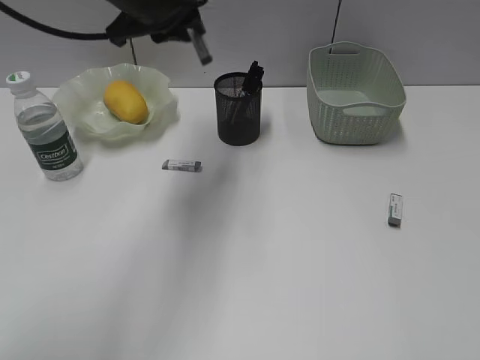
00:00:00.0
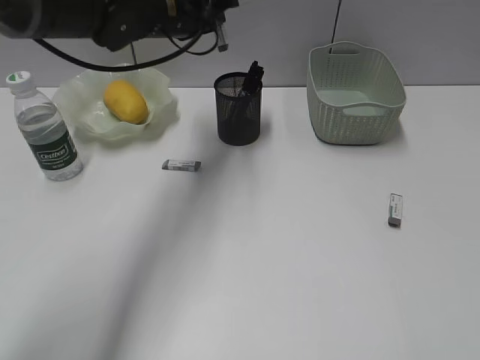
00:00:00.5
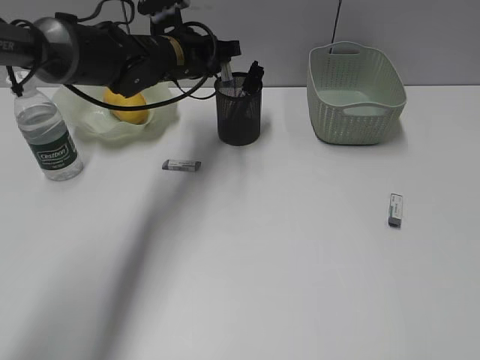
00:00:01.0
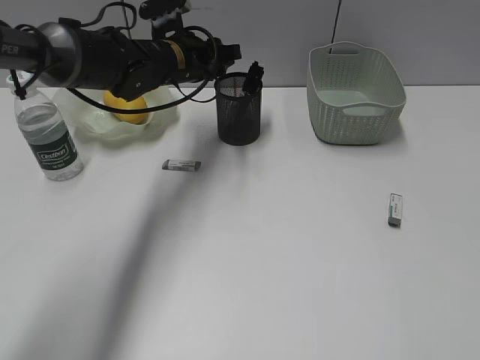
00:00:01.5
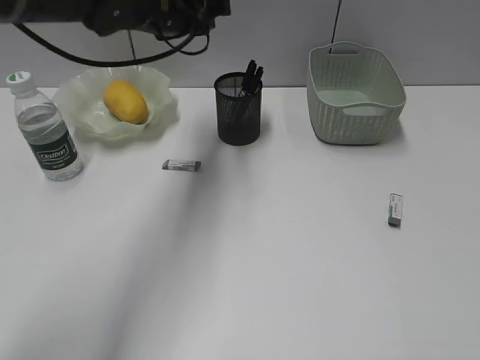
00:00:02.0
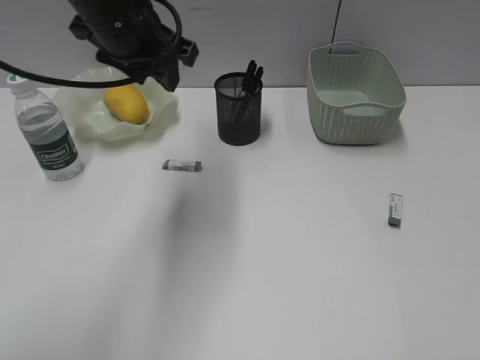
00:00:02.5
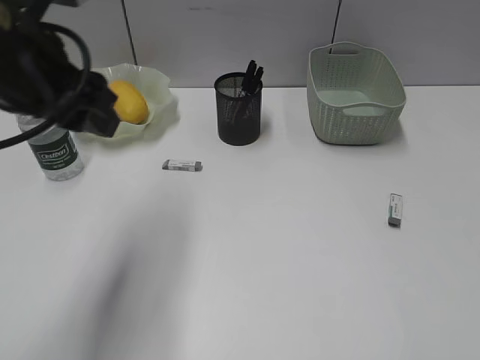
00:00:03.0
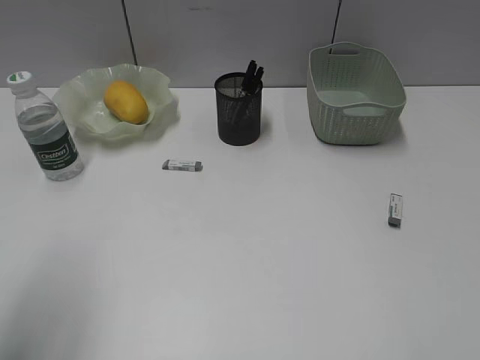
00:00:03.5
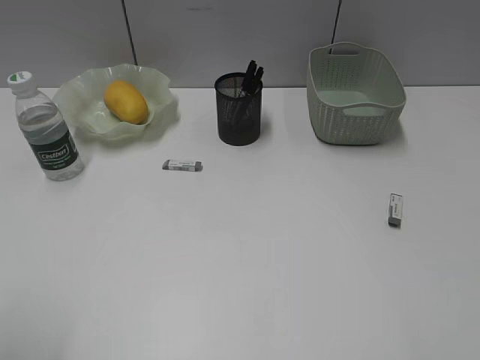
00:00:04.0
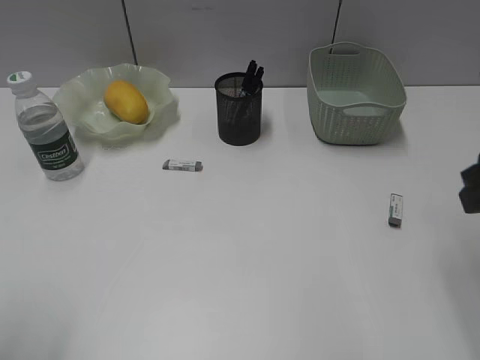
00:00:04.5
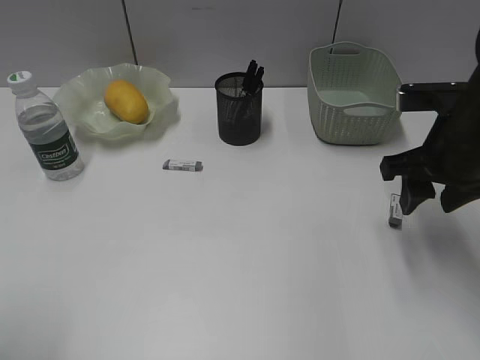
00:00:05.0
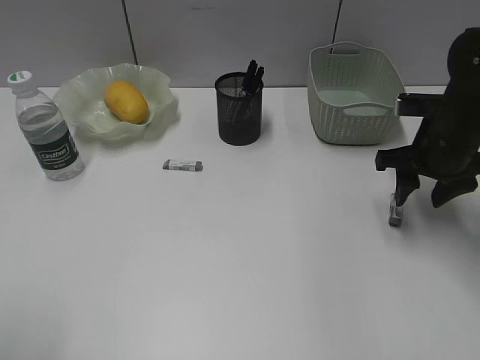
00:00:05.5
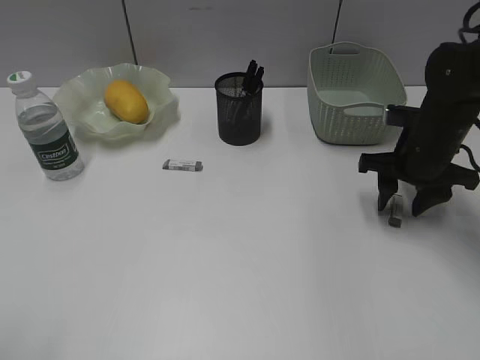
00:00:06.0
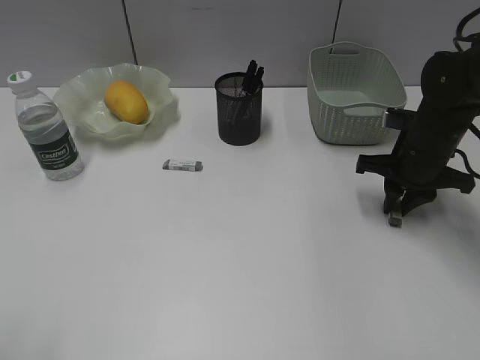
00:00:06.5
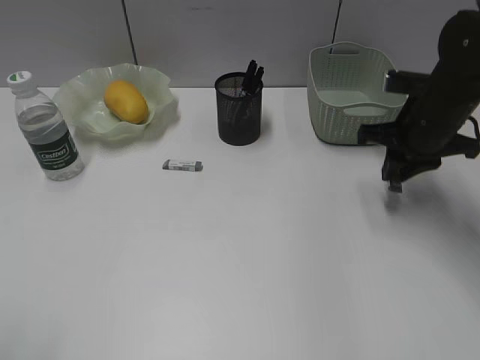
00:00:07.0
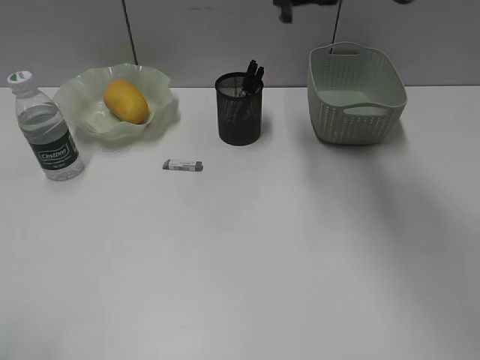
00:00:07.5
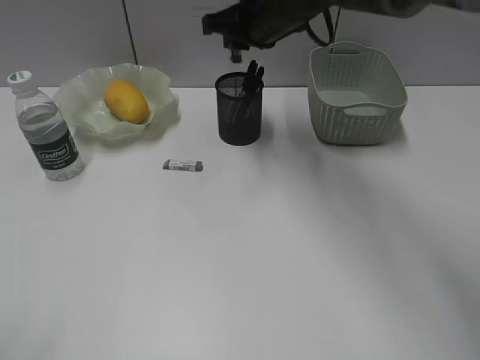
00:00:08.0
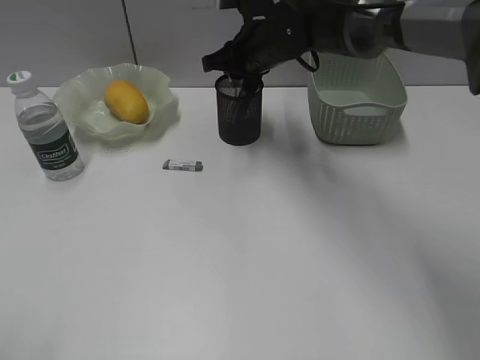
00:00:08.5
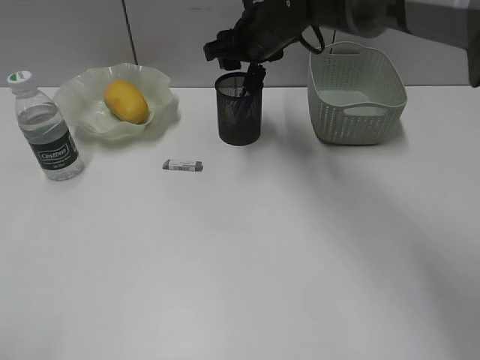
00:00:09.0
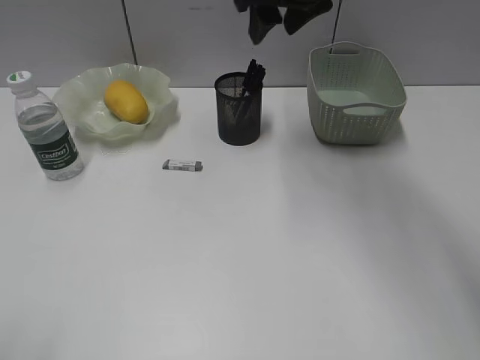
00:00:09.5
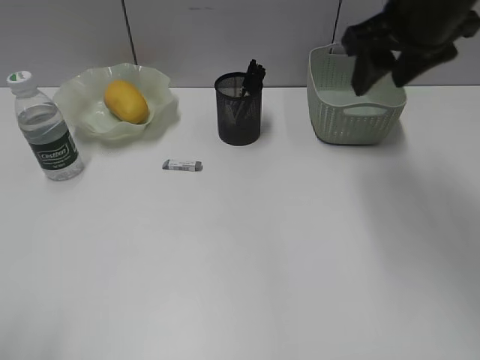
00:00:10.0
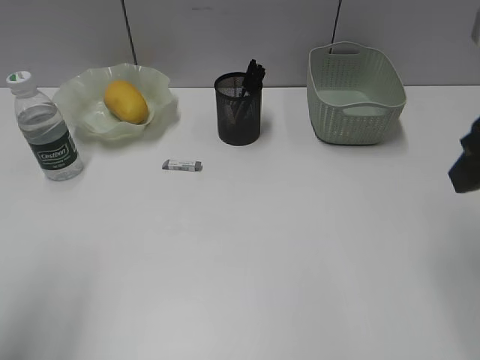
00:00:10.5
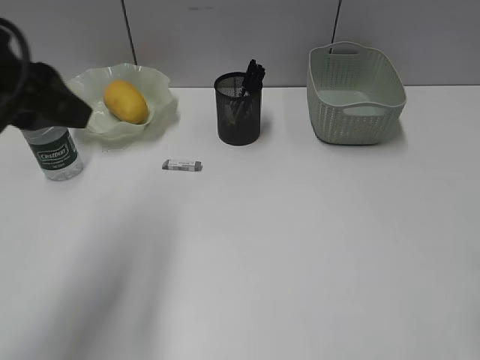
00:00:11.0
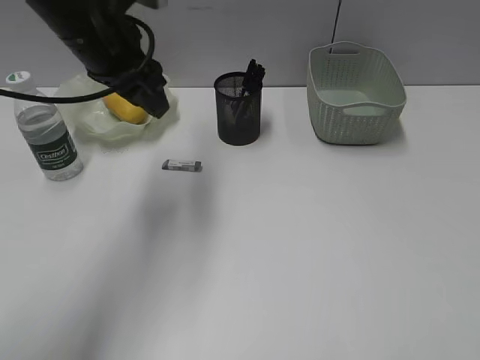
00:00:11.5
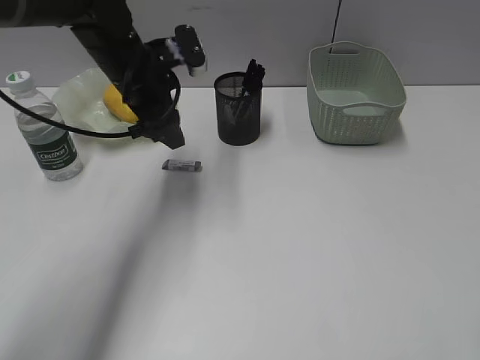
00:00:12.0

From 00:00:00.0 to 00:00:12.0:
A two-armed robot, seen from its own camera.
Step, from 00:00:00.0 to 00:00:01.5: Place the eraser in pen holder with left gripper.
Step, from 00:00:02.0 to 00:00:06.5: Grasp the eraser with right gripper.
Step, from 00:00:07.0 to 00:00:08.5: Place the eraser in pen holder with right gripper.
From 00:00:00.0 to 00:00:02.0: The left gripper travels downward and back again, about 10 cm each way.
From 00:00:02.0 to 00:00:04.0: The left gripper moves backward and to the left, some 40 cm.
From 00:00:04.0 to 00:00:06.0: The right gripper heads forward and downward, covering roughly 35 cm.
From 00:00:06.0 to 00:00:08.0: The right gripper moves to the left, upward and forward, about 25 cm, and closes its fingers.
From 00:00:08.0 to 00:00:10.0: The right gripper moves to the right, backward and upward, approximately 20 cm, and opens its fingers.
From 00:00:10.0 to 00:00:12.0: The right gripper travels backward and to the right by some 25 cm. Meanwhile the left gripper shifts roughly 40 cm forward and to the right.

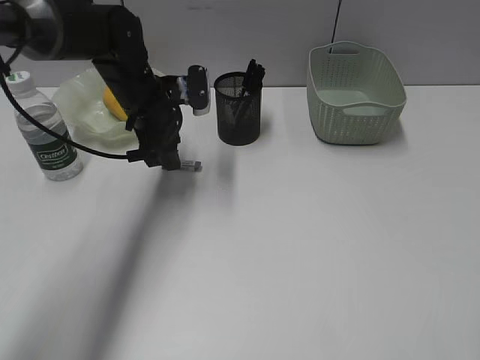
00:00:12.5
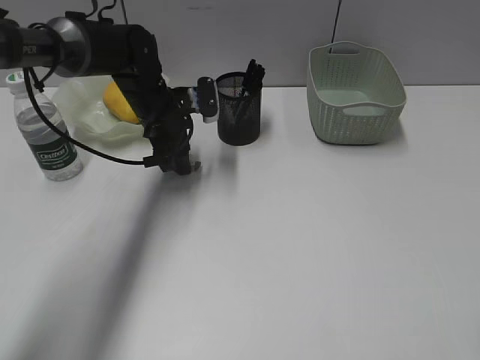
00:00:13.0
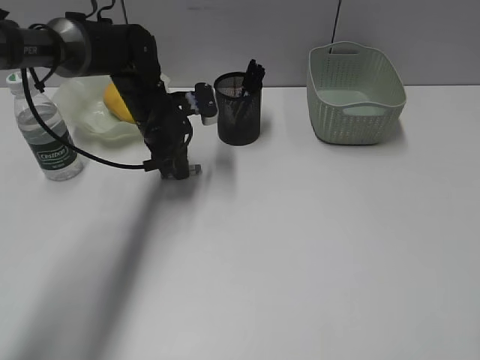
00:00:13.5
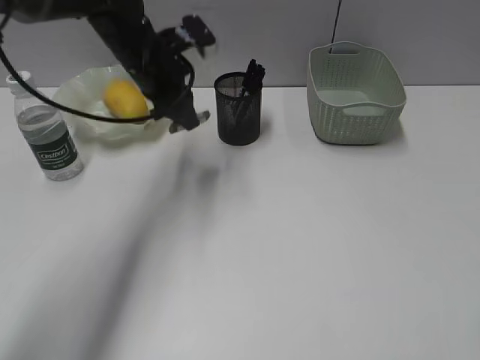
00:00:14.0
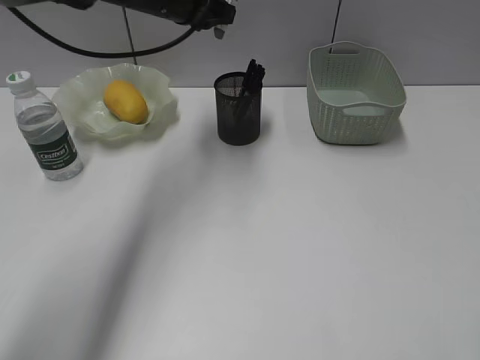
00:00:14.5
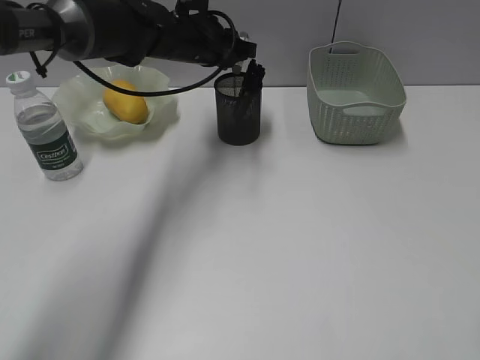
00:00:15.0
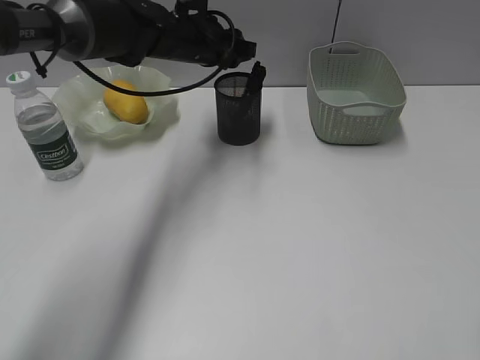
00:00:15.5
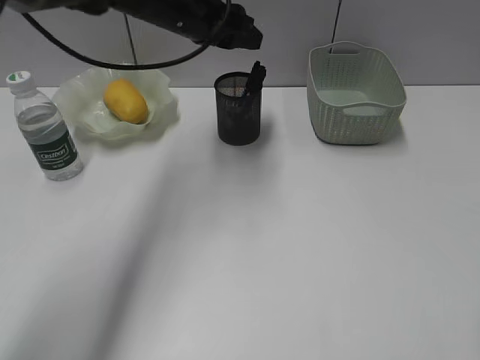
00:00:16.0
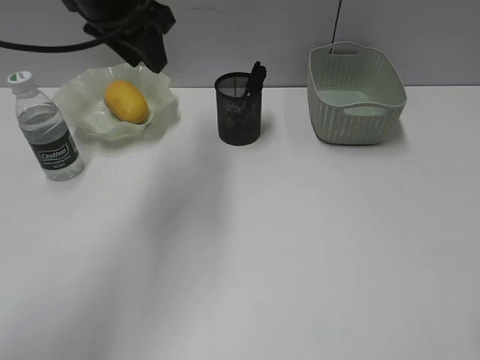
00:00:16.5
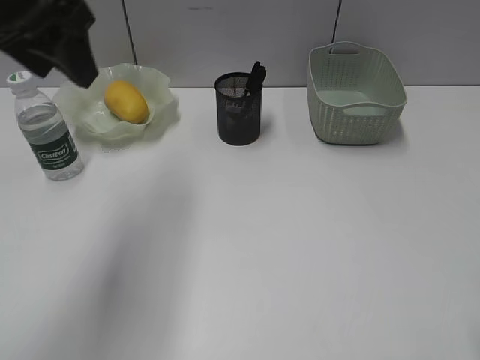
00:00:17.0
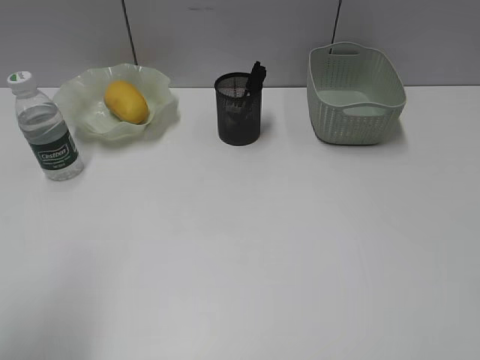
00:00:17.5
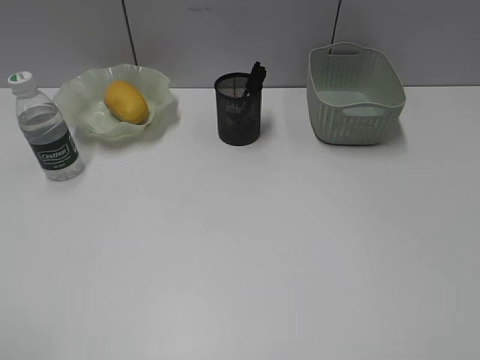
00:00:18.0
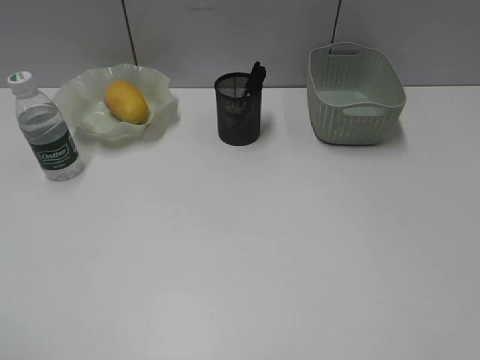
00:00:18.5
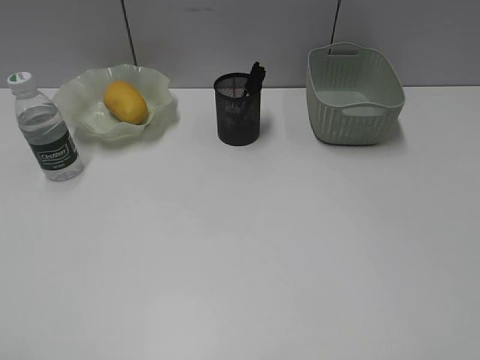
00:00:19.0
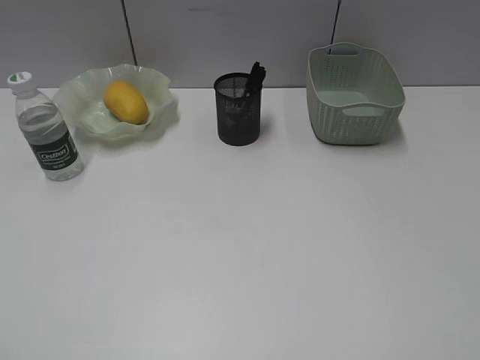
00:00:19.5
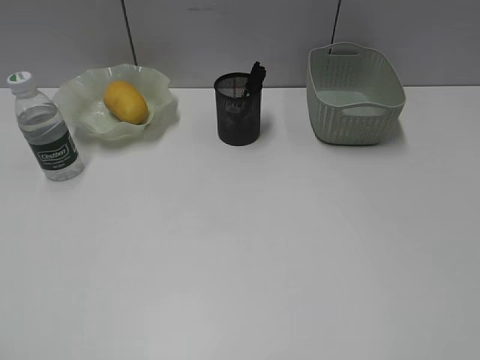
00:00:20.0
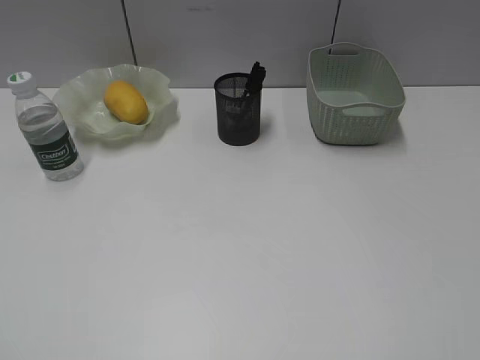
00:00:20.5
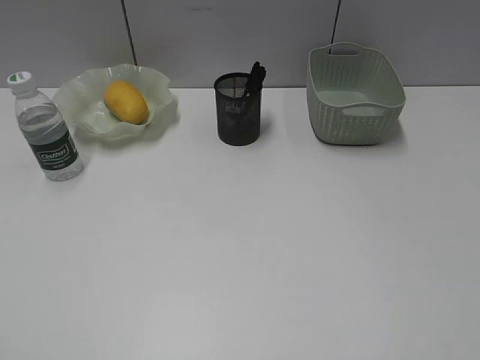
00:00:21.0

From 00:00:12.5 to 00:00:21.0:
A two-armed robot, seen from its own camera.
Step, from 00:00:14.0 to 00:00:15.0: Place the eraser in pen holder with left gripper.
From 00:00:12.5 to 00:00:14.5: The left gripper heads upward, covering about 10 cm, and closes.
From 00:00:14.5 to 00:00:16.5: The left gripper goes roughly 10 cm backward and upward.
From 00:00:16.5 to 00:00:19.0: The left gripper goes about 40 cm backward and to the left. Meanwhile the right gripper travels backward by some 5 cm.

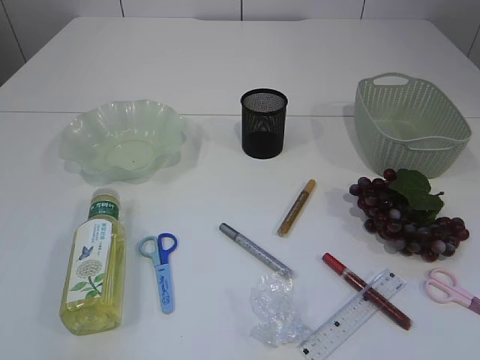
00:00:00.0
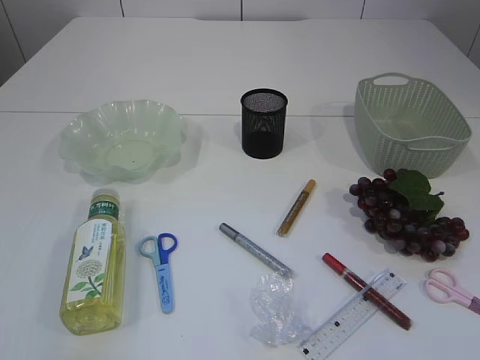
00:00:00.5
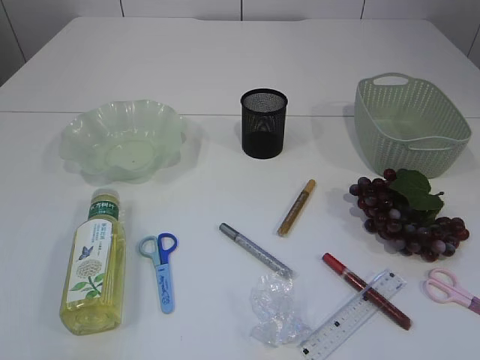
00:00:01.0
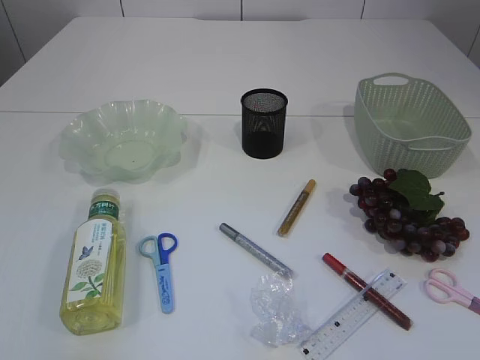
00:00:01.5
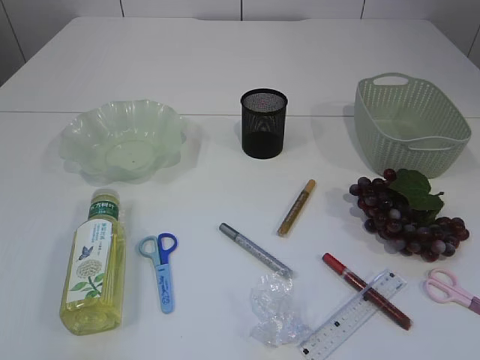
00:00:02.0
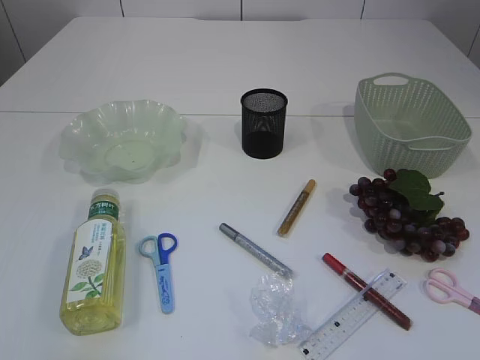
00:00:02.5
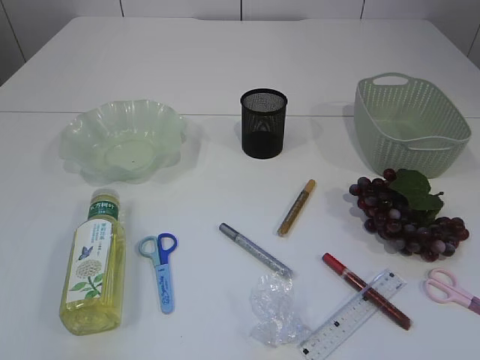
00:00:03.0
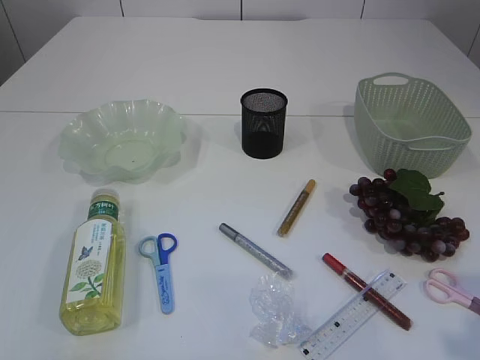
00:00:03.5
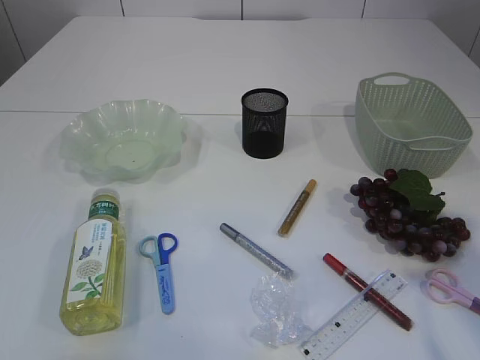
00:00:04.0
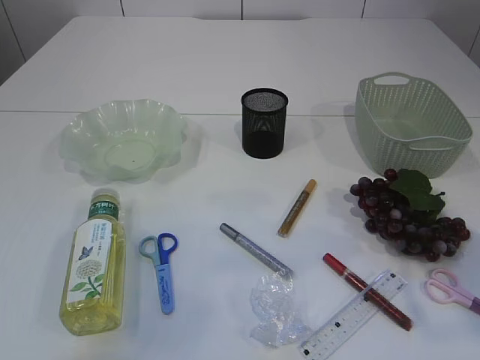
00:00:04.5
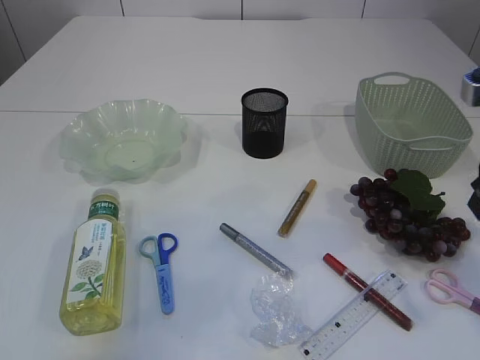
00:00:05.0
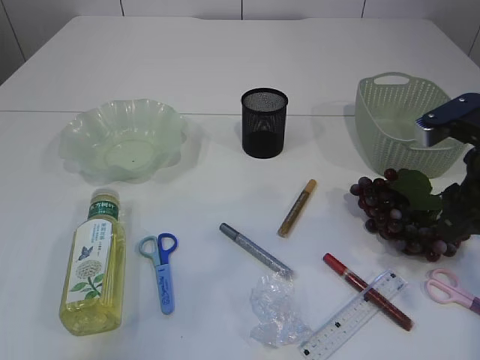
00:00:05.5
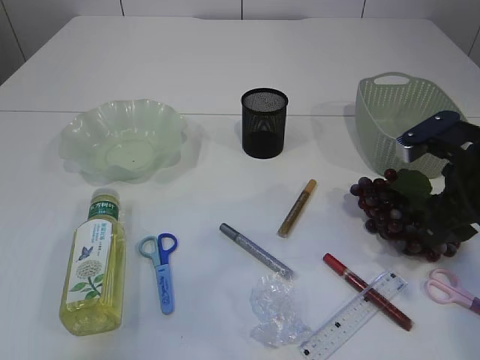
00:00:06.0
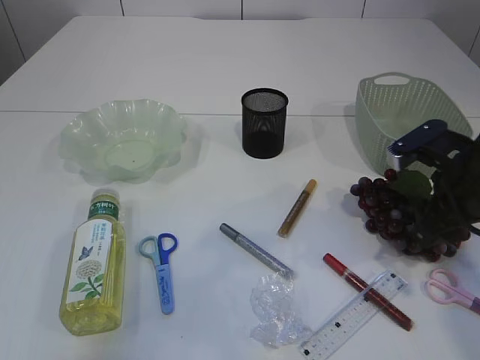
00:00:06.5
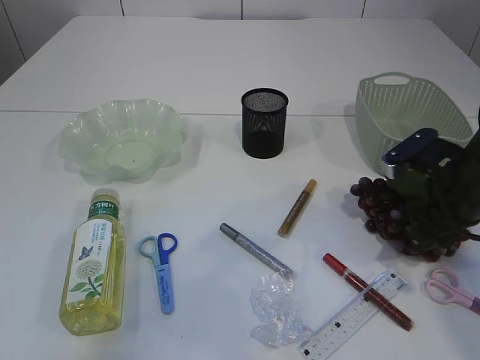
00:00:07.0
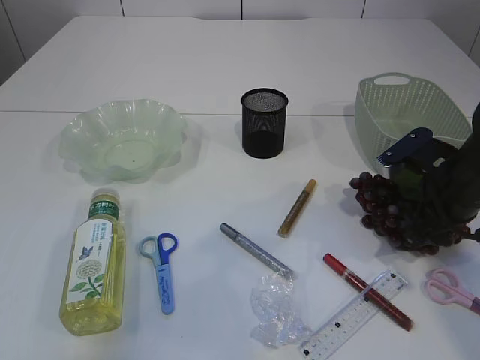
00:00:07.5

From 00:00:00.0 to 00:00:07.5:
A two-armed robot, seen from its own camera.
From 00:00:02.0 to 00:00:04.0: The right gripper travels forward by roughly 15 cm.
From 00:00:04.0 to 00:00:05.5: The right gripper goes approximately 15 cm forward and downward.
From 00:00:05.5 to 00:00:07.5: The right gripper shifts about 10 cm downward.
